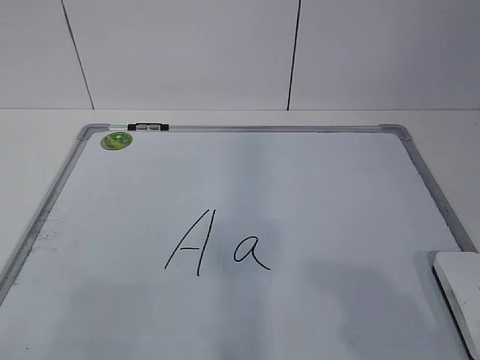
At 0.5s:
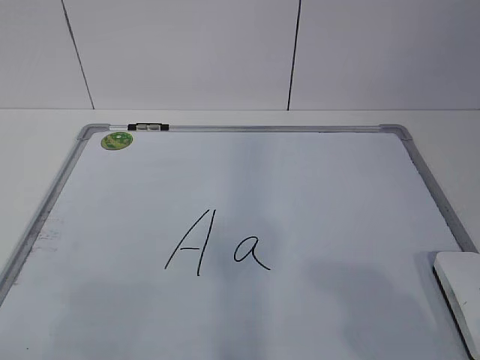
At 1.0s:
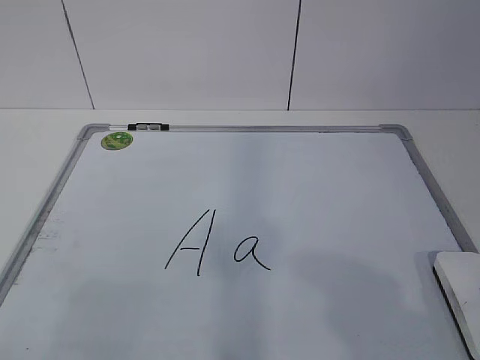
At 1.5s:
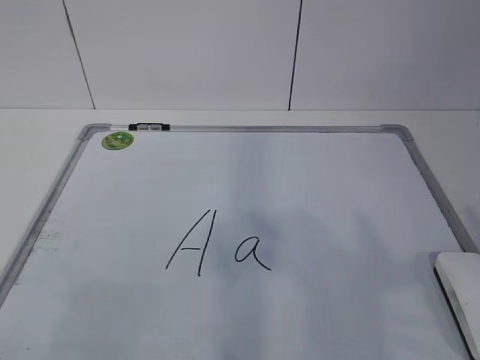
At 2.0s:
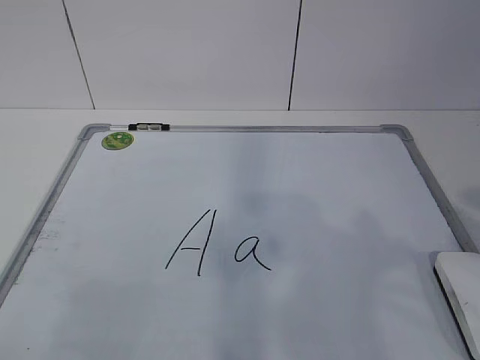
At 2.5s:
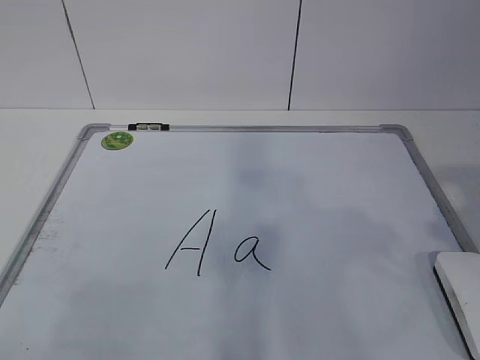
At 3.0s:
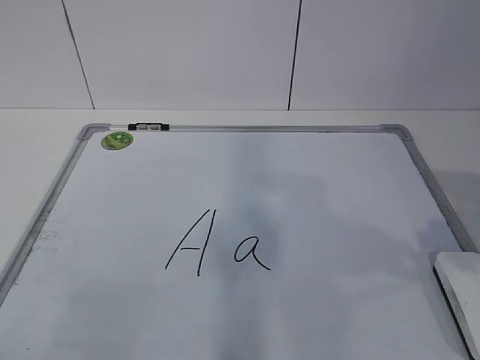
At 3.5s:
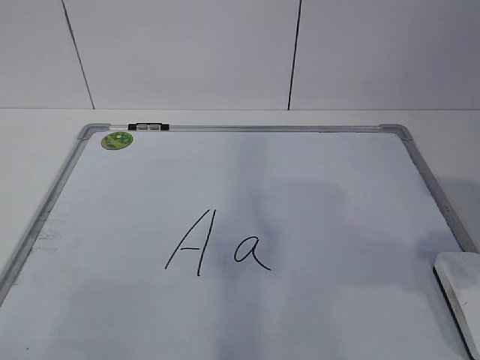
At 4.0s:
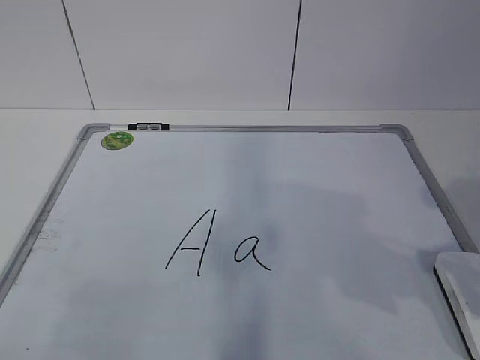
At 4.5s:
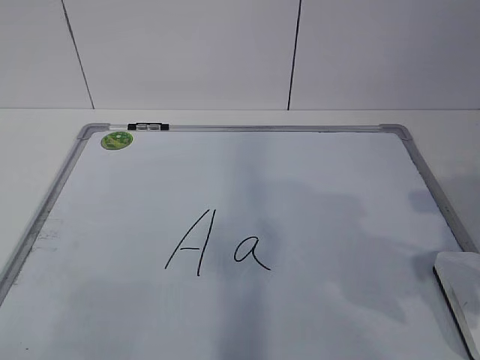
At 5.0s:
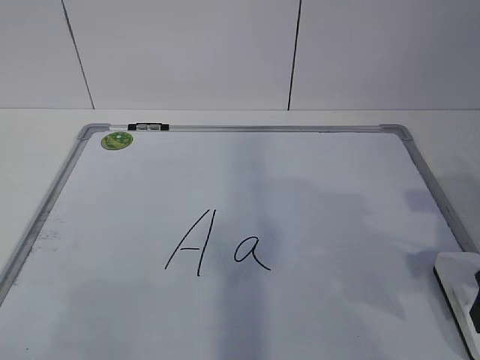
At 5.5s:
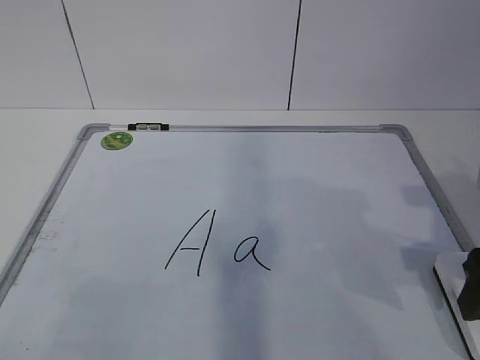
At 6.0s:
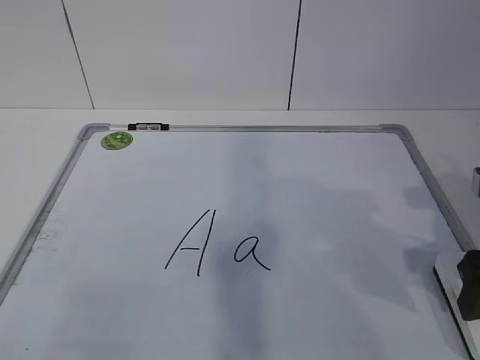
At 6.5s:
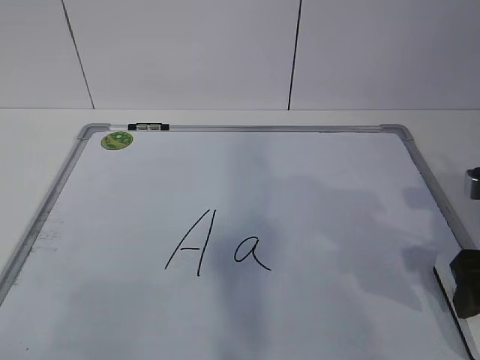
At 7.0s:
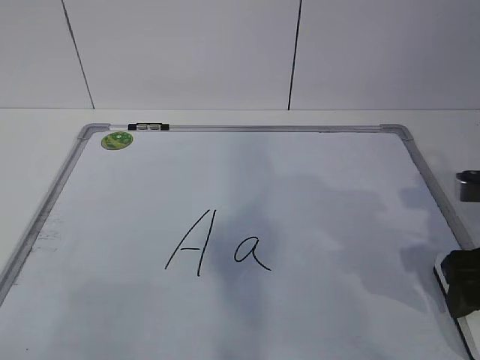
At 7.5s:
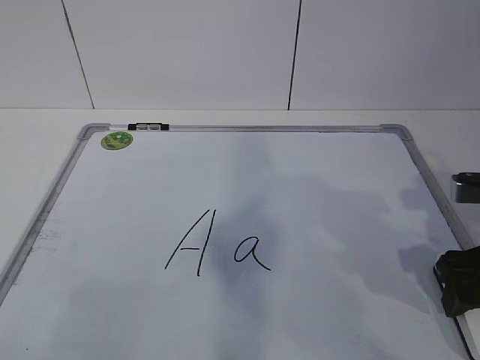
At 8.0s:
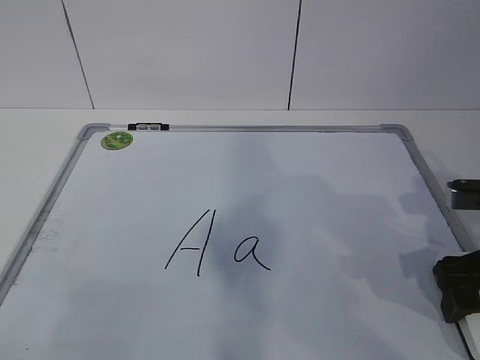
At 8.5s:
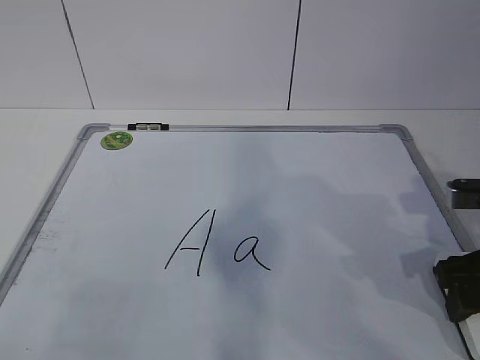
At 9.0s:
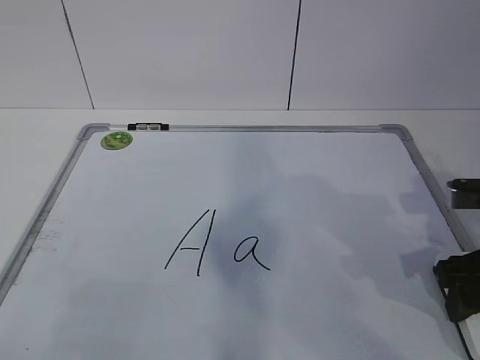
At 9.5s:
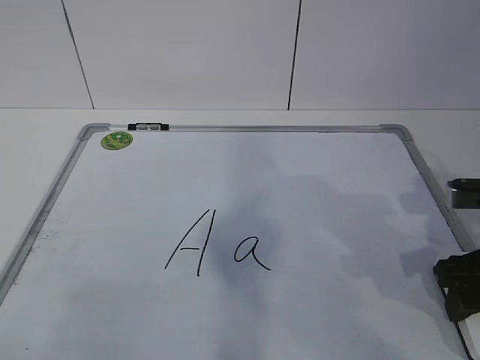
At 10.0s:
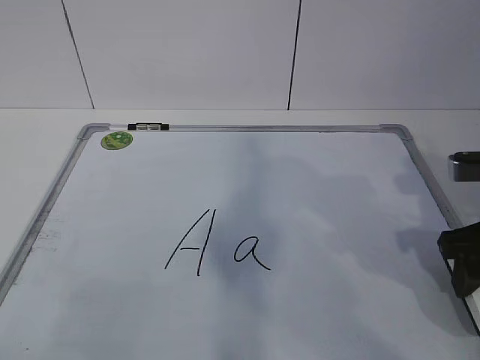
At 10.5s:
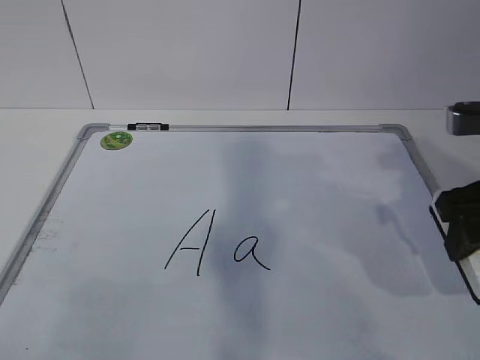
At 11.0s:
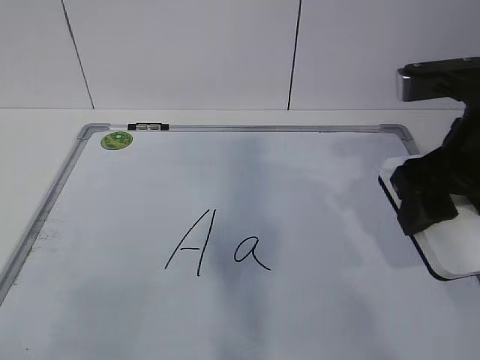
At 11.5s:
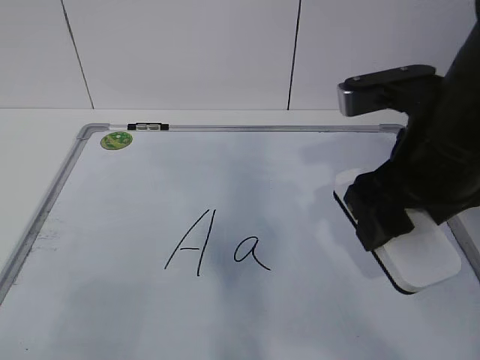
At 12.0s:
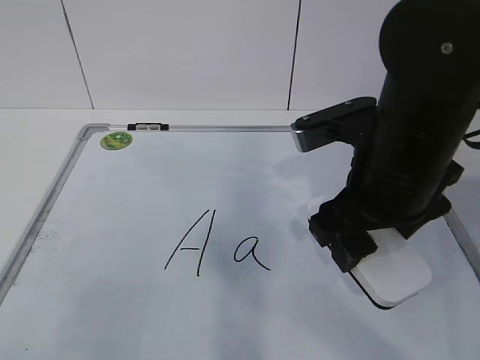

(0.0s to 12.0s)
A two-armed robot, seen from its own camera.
Task of the whole recording: pick up the eraser on the blackboard and erase the letter "a".
2.0s - 4.0s: The right gripper moves forward and downward, some 10 cm.
4.0s - 6.0s: The right gripper shifts by roughly 5 cm, and opens its fingers.
6.0s - 8.0s: The grippers stay close to where they were, moving slightly.
8.0s - 10.0s: The right gripper closes its fingers.
10.0s - 12.0s: The right gripper travels to the left by roughly 15 cm.

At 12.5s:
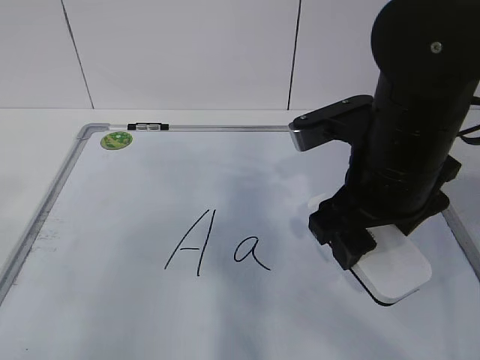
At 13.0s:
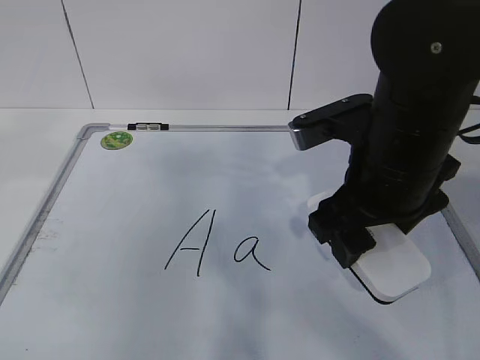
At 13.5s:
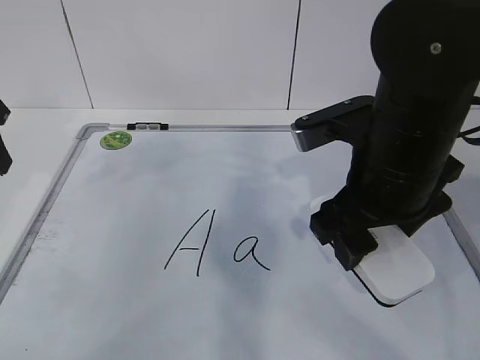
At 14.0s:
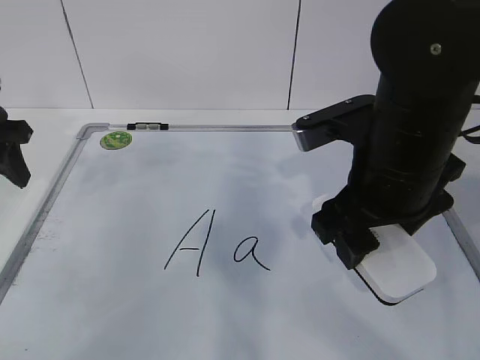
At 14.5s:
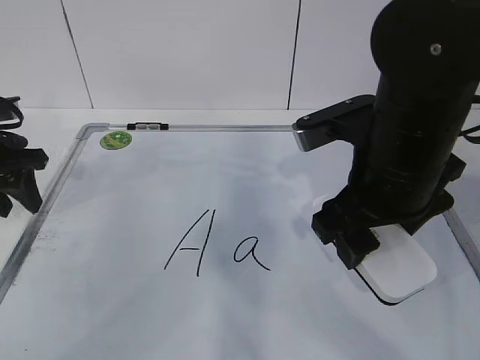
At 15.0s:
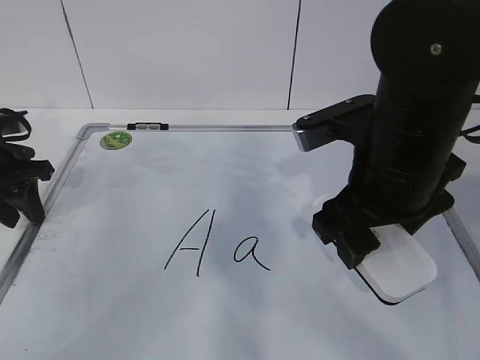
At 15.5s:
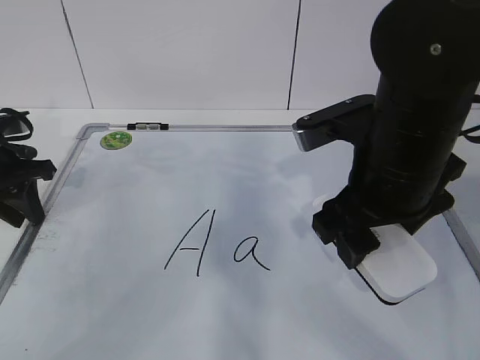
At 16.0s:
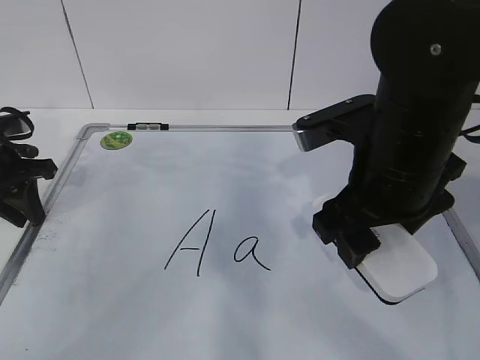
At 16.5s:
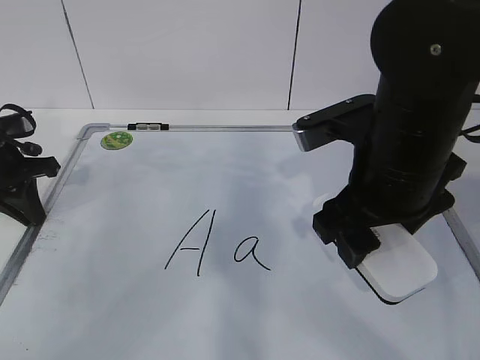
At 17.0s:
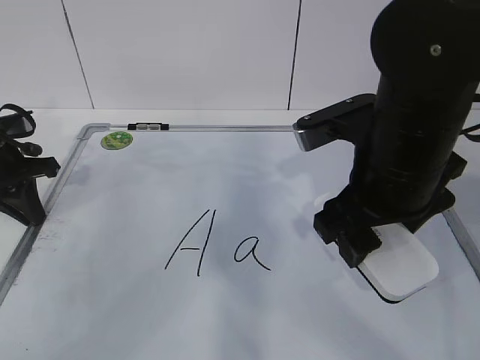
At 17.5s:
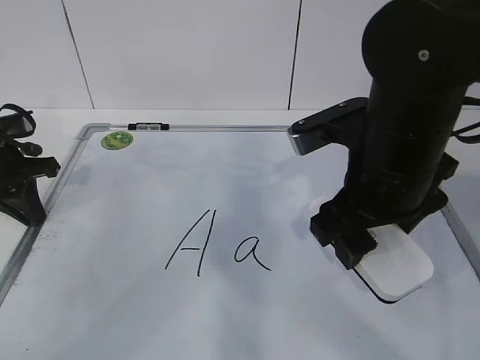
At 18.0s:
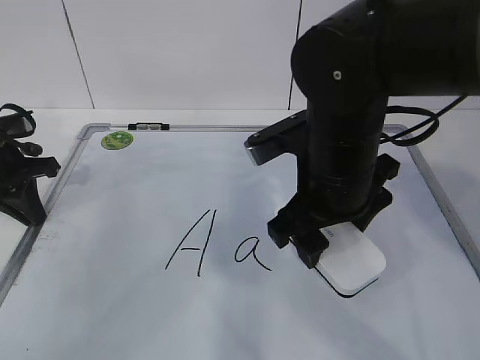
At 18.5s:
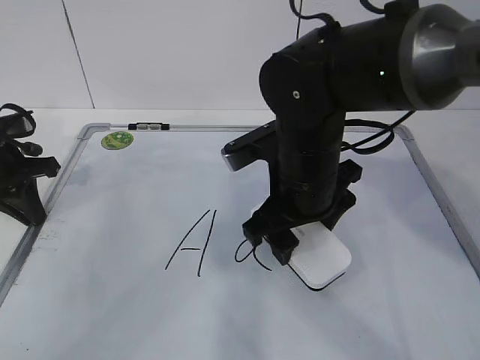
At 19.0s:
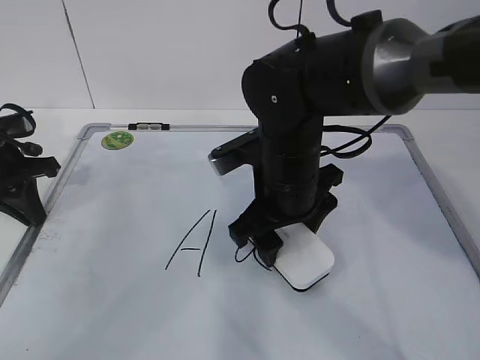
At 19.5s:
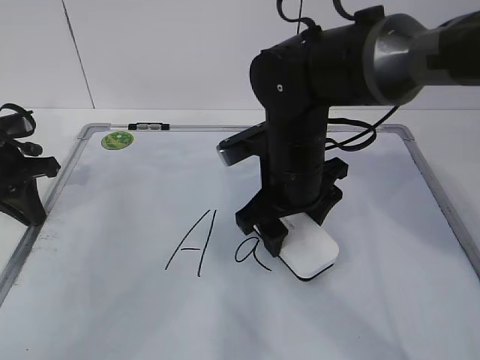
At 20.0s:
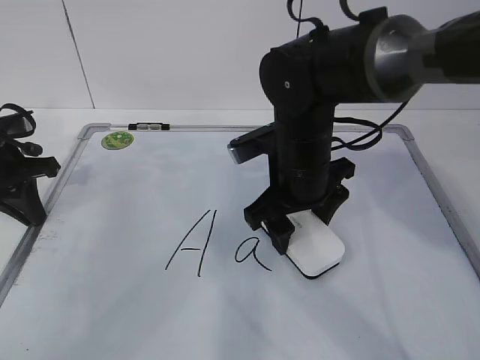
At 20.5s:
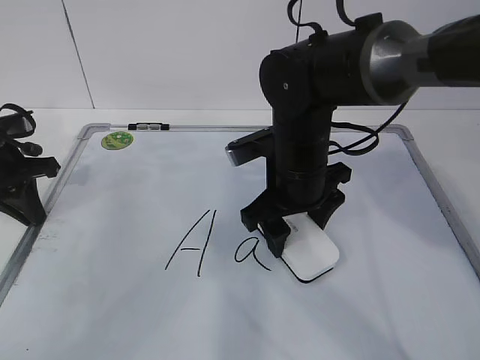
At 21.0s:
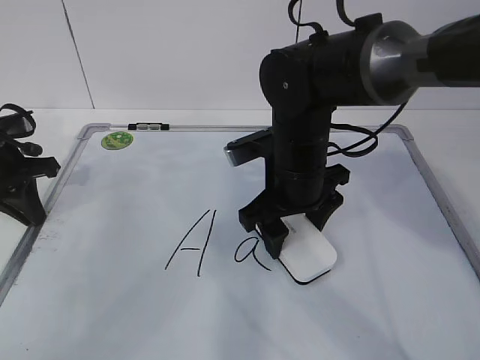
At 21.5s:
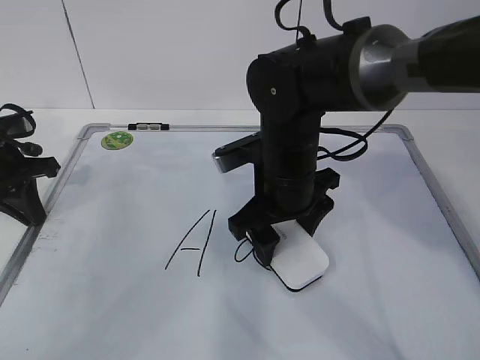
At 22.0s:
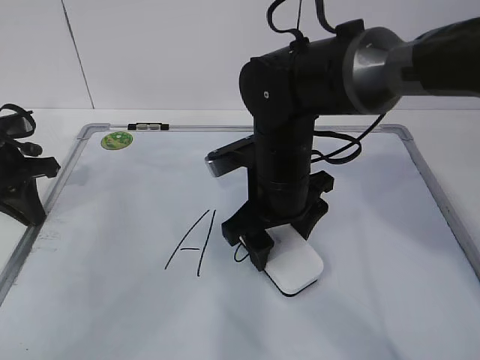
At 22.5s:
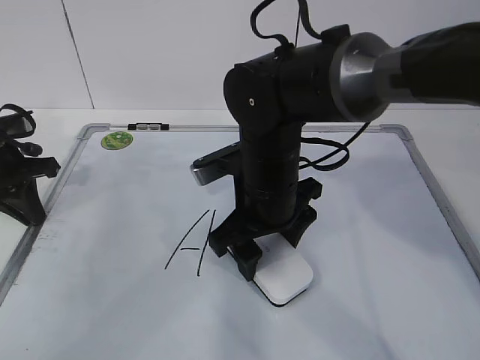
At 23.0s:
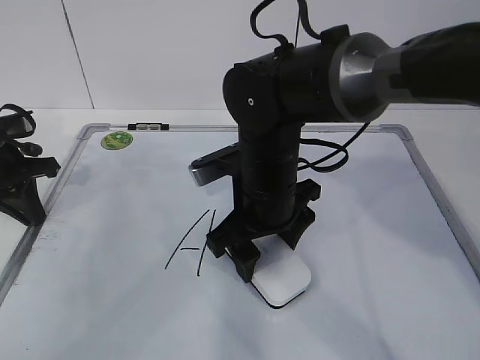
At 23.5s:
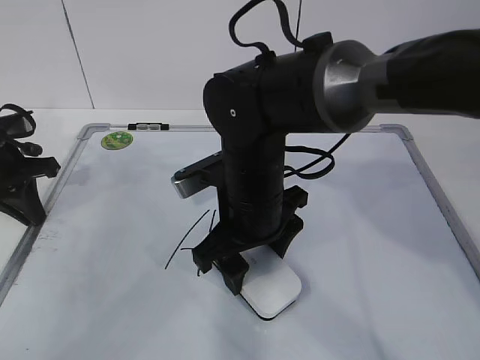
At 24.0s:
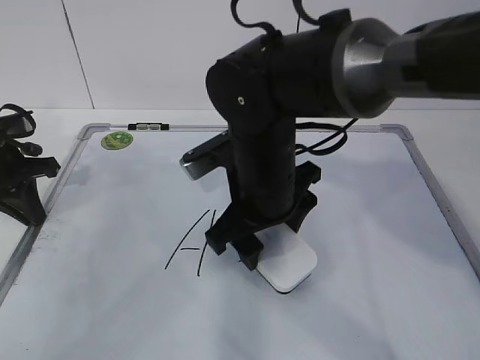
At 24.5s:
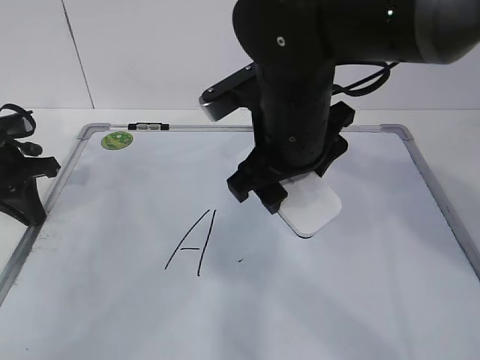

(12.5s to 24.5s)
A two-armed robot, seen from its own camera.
Task of the whole recording: pick up the eraser on the blackboard and erase the letter "a".
Step, 14.0s - 23.5s: Erase the letter a with your right hand.
12.5s - 14.5s: The left gripper goes about 35 cm forward and downward.
14.5s - 16.5s: The left gripper closes its fingers.
16.5s - 18.5s: The right gripper moves to the left and downward, roughly 10 cm.
18.5s - 22.5s: The grippers stay close to where they were, moving slightly.
22.5s - 24.5s: The right gripper shifts roughly 10 cm upward.

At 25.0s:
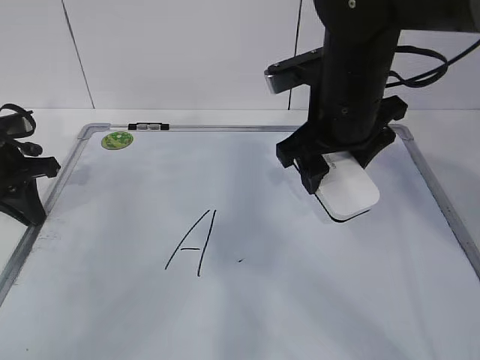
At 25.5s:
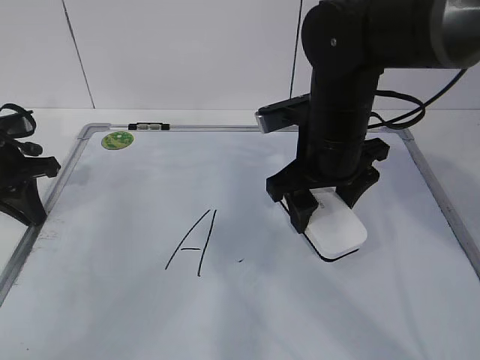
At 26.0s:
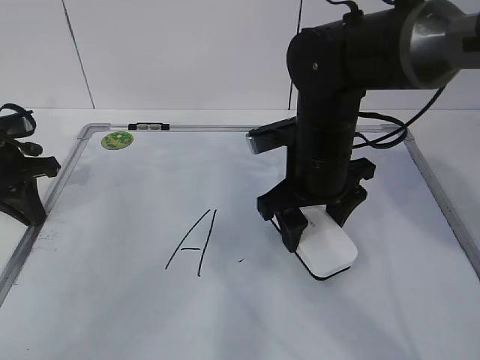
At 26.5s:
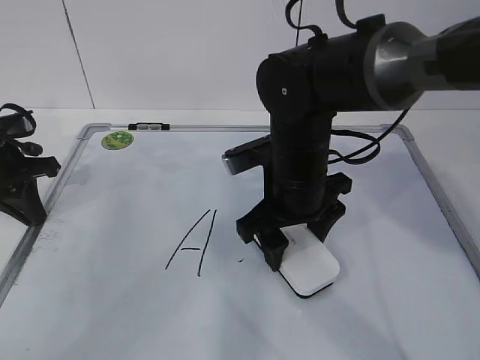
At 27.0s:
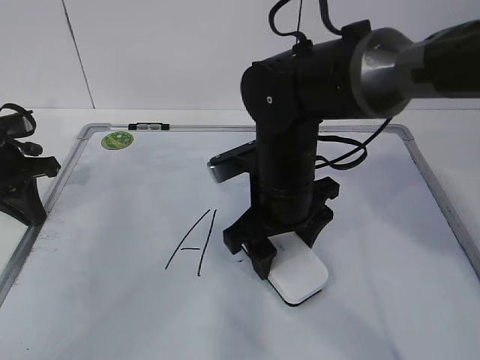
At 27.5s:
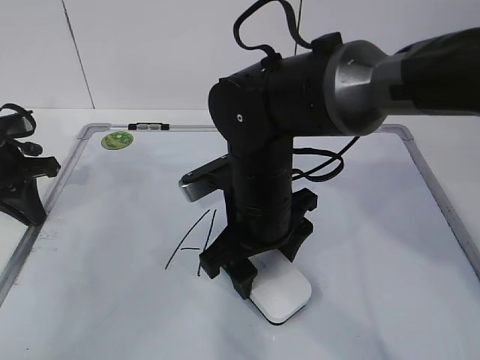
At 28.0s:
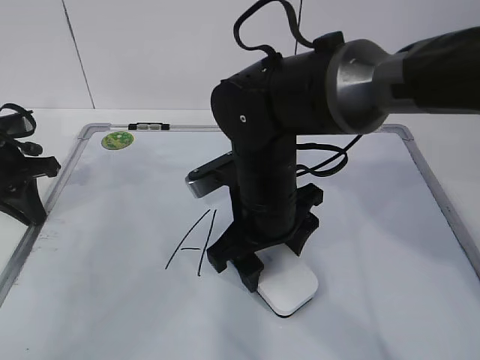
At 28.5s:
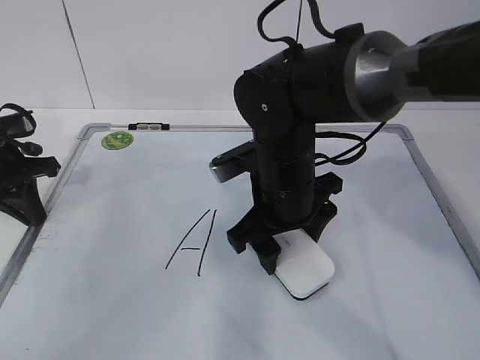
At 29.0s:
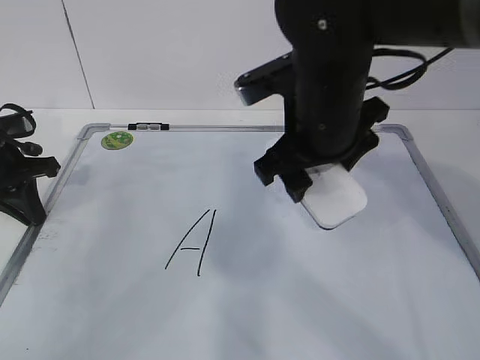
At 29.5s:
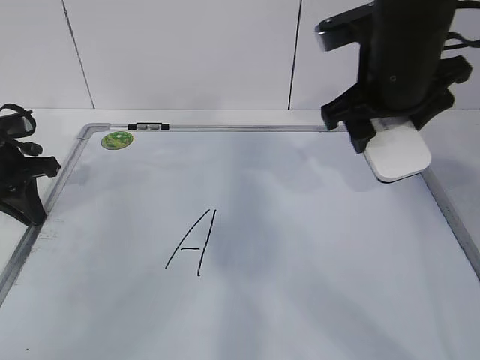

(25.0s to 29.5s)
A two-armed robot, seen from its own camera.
Task of the whole recording: pick up the eraser on the blackboard and erase the letter "a".
Step, 25.0s - 29.0s: Put down the eraser with your right hand.
25.0s - 27.0s: The right gripper moves downward and to the left, roughly 10 cm.
27.0s - 29.5s: The right gripper heads upward and to the right, covering roughly 15 cm.
